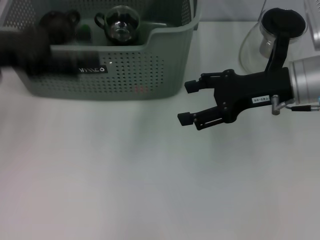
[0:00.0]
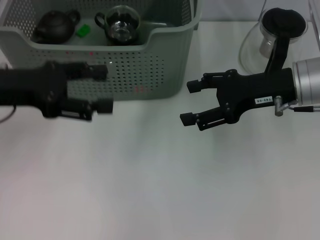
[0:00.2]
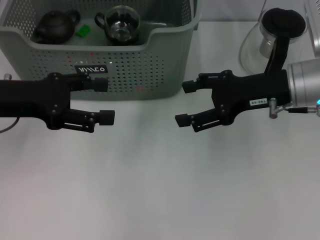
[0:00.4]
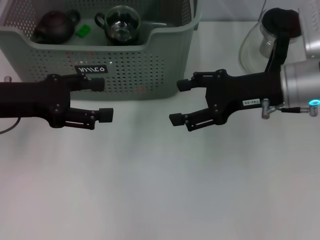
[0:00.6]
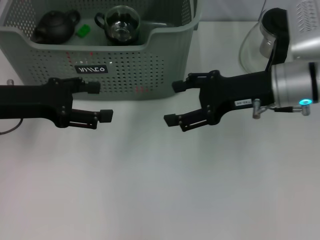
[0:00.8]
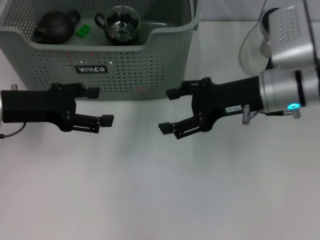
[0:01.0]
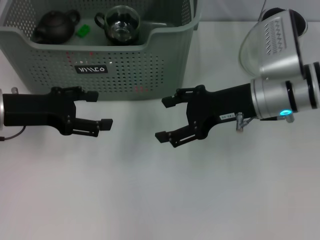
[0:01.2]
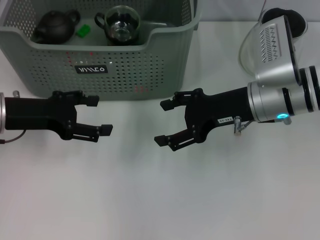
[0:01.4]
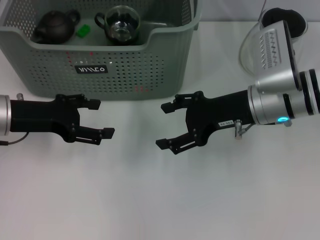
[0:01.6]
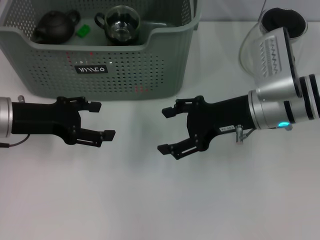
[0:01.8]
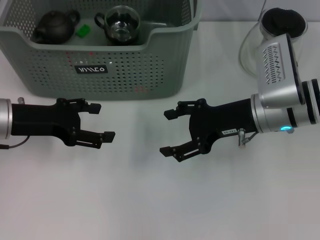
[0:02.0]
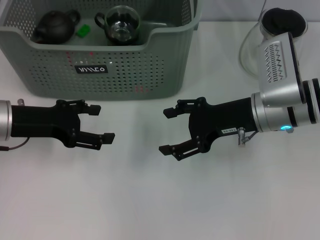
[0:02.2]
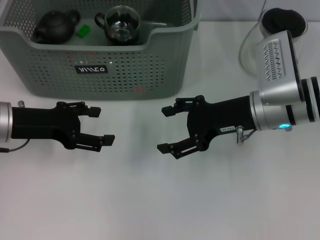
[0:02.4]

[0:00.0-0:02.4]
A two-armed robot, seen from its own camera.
Task of the whole recording: pick up the teacup on the table and place it into the storage bin, pick up the block on the table and place it into the storage bin.
0:00.0 to 0:01.2: The left gripper shifts approximately 10 cm downward; the right gripper ends up about 5 cm from where it was.
0:01.2 to 0:02.4: There are only small adjustments of the grippers.
